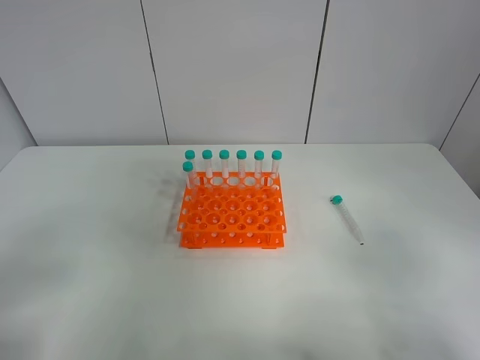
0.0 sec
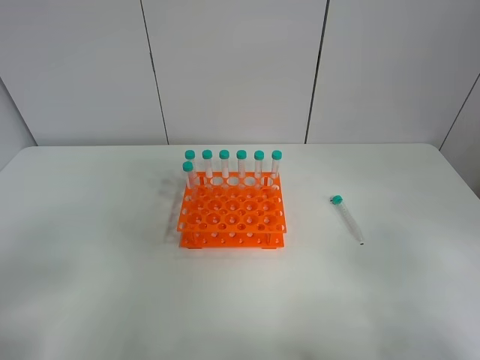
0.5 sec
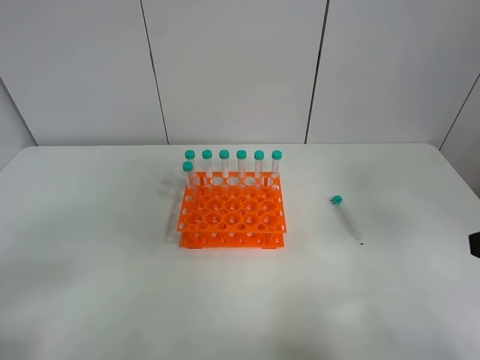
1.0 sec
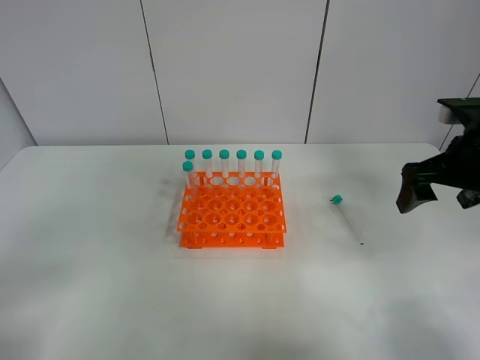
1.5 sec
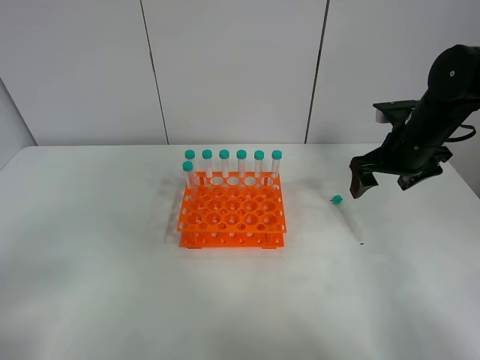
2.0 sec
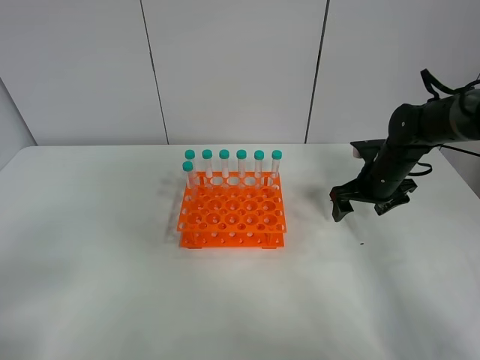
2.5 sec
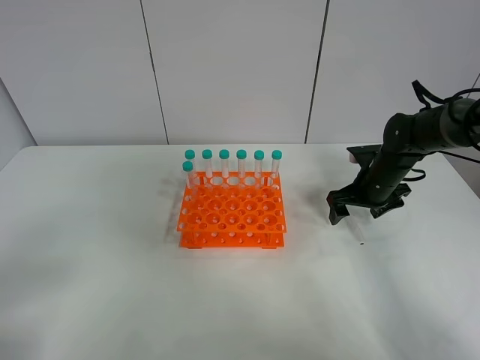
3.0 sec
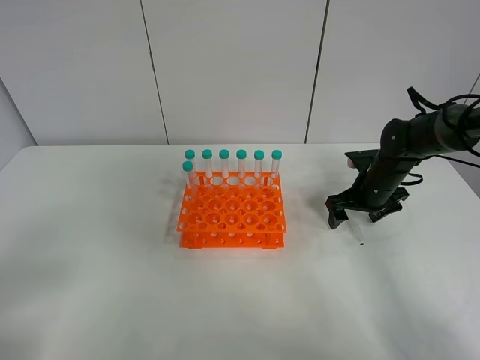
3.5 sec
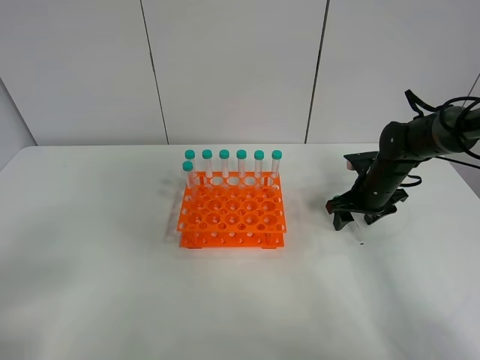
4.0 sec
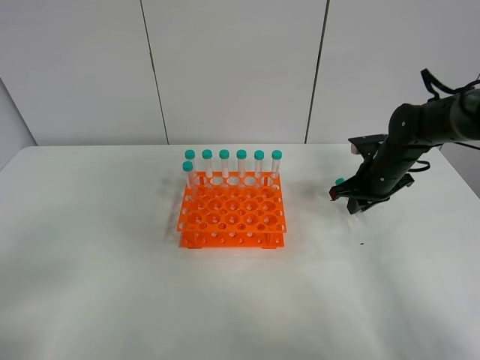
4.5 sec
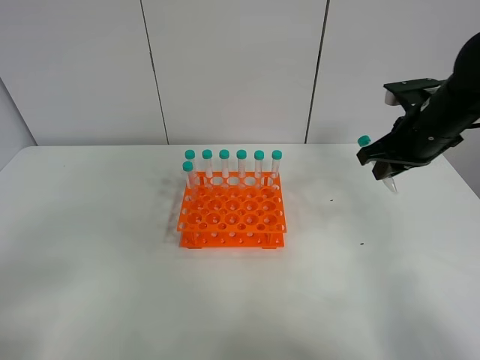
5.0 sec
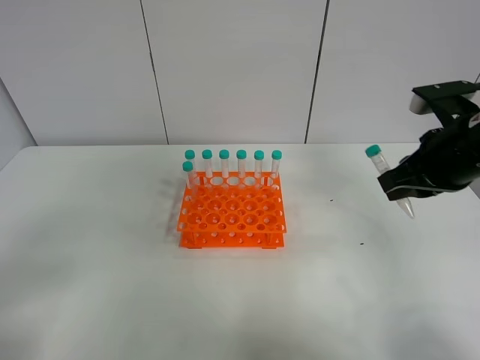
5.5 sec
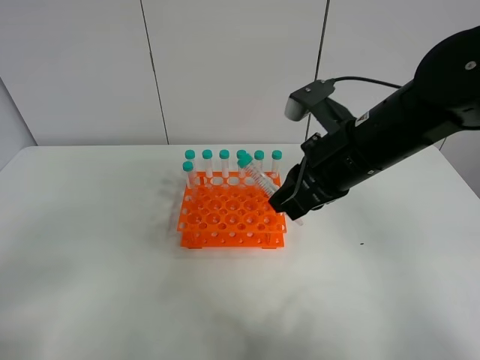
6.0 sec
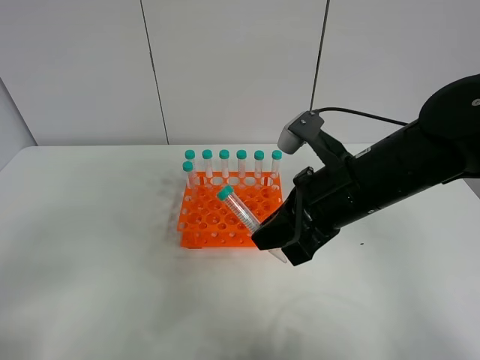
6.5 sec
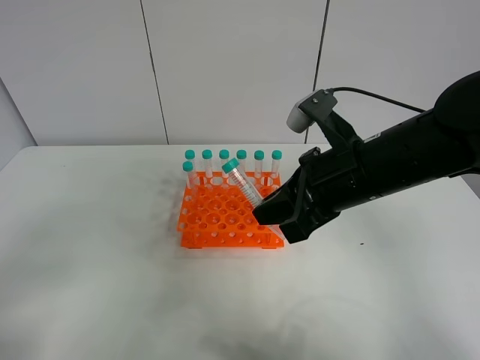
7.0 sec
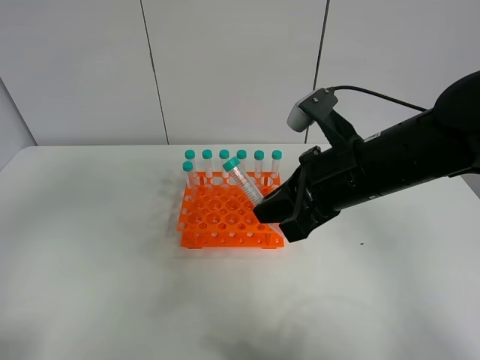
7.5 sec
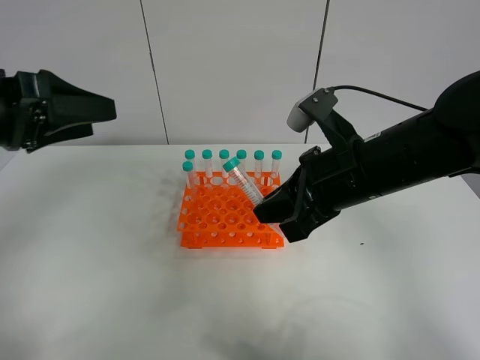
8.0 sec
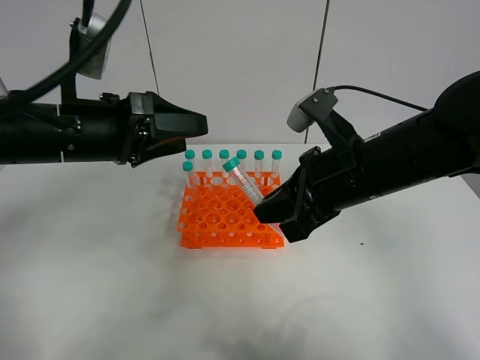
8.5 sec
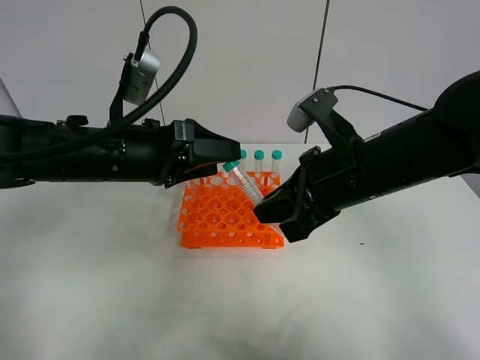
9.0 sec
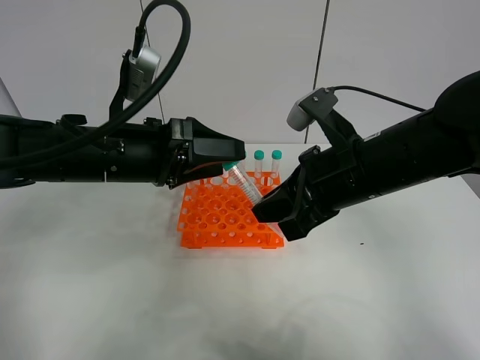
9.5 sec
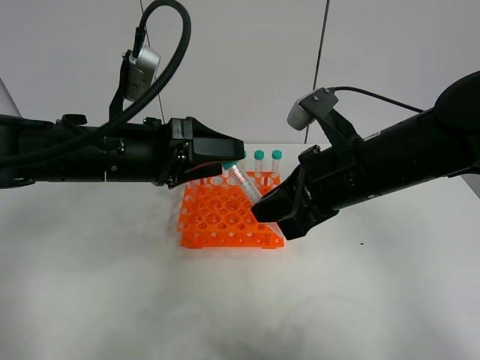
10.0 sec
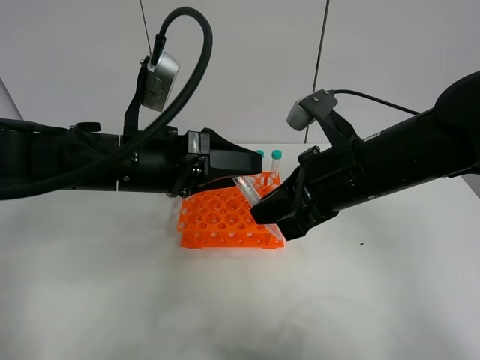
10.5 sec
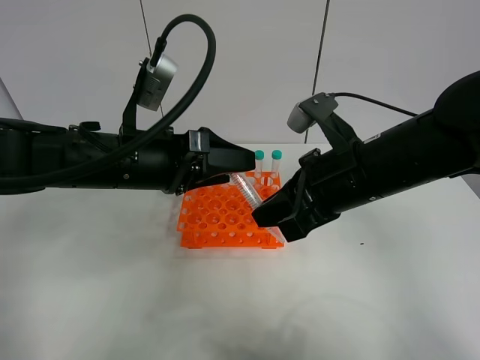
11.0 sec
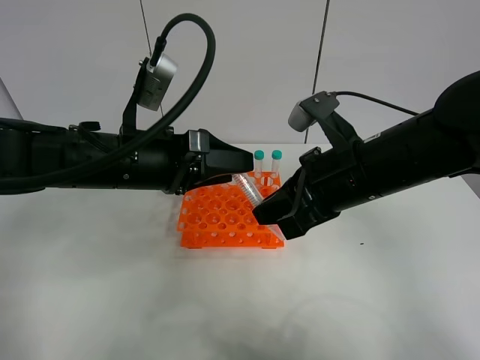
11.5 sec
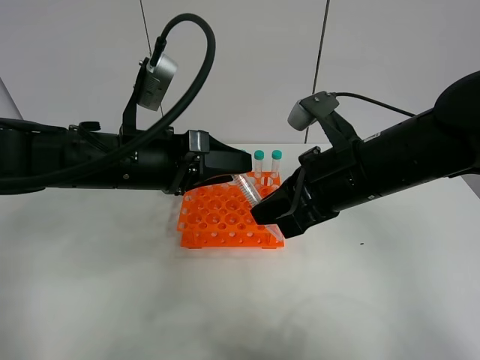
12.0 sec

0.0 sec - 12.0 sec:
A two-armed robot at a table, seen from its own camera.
Task of the whole recording: Put the test tube on the table back onto the test tube rack.
Step, 0.0 sec - 4.0 sec: Pick up the test tube with the right gripper.
0.0 sec - 2.0 sec: The right gripper shifts approximately 35 cm forward.
2.0 sec - 4.0 sec: The right gripper travels downward by some 10 cm.
4.0 sec - 6.0 sec: The right gripper shifts some 25 cm upward, backward and to the left, and closes up.
6.0 sec - 8.0 sec: The left gripper moves forward, about 20 cm.
8.0 sec - 10.0 sec: The left gripper heads to the right and downward, covering about 15 cm.
10.0 sec - 12.0 sec: The left gripper closes up.

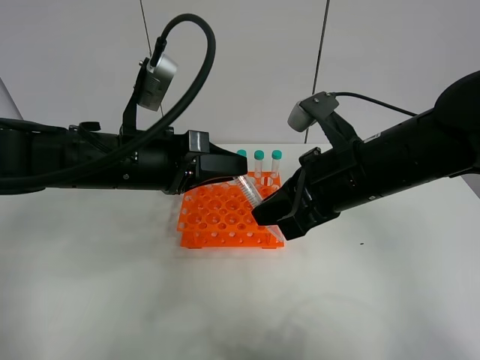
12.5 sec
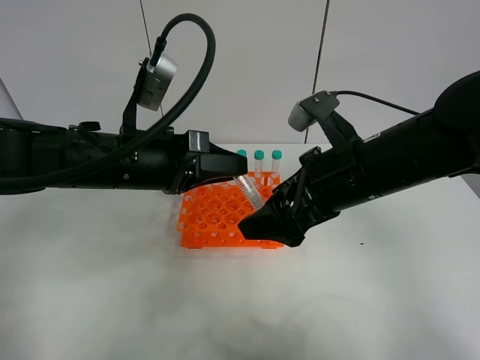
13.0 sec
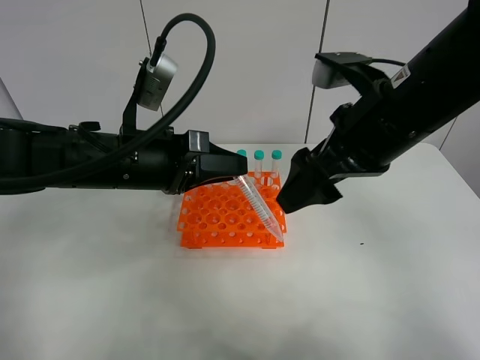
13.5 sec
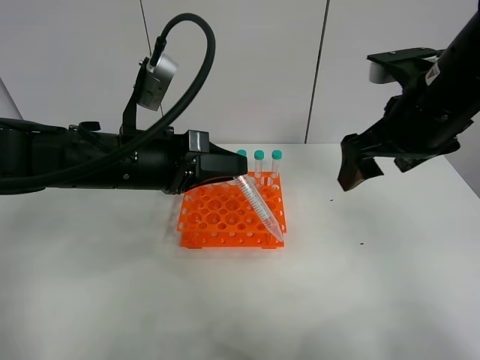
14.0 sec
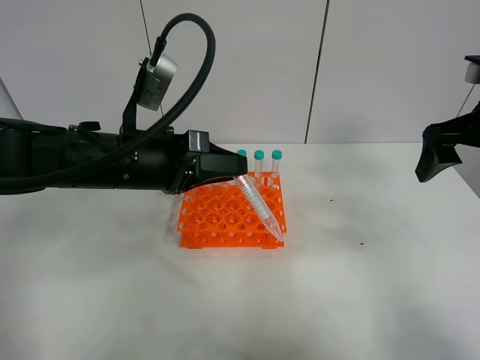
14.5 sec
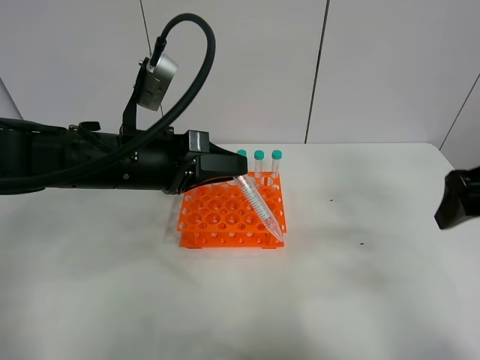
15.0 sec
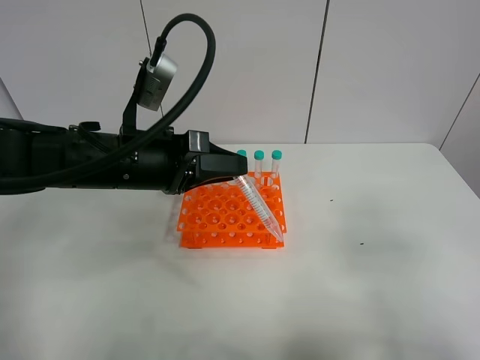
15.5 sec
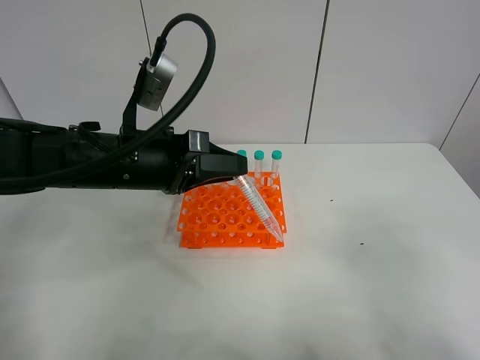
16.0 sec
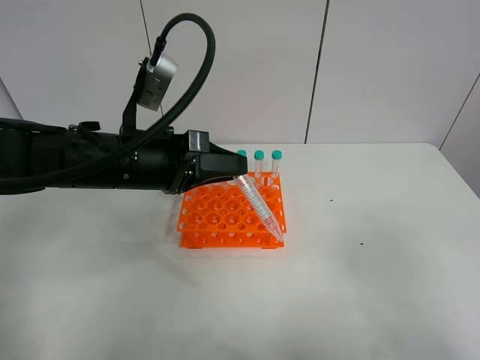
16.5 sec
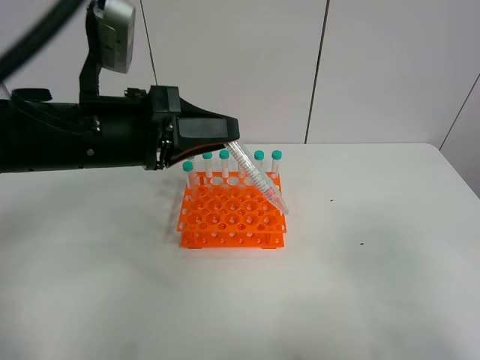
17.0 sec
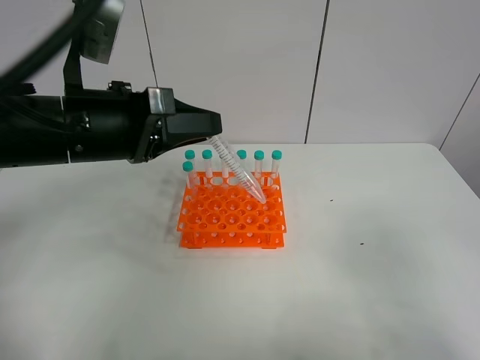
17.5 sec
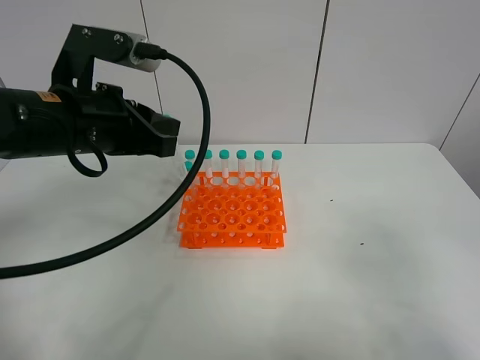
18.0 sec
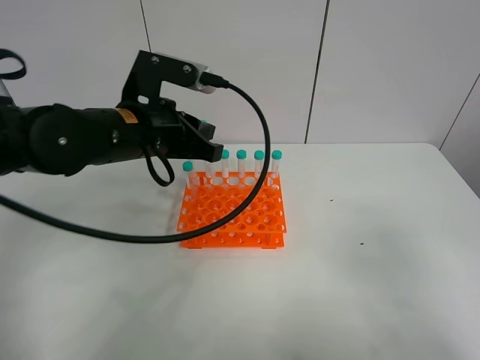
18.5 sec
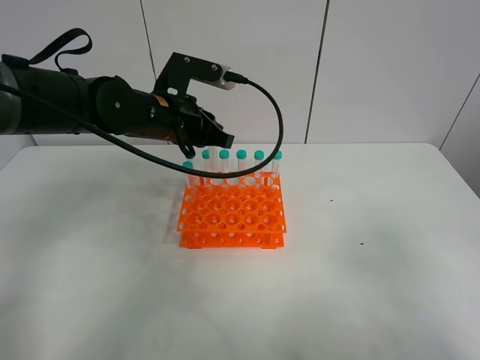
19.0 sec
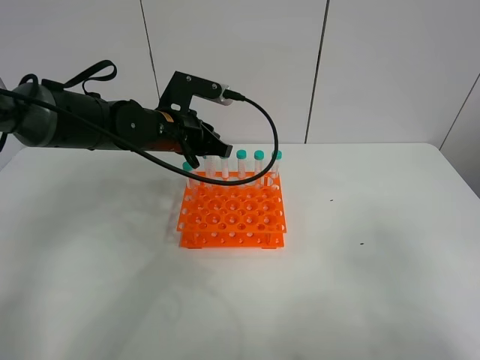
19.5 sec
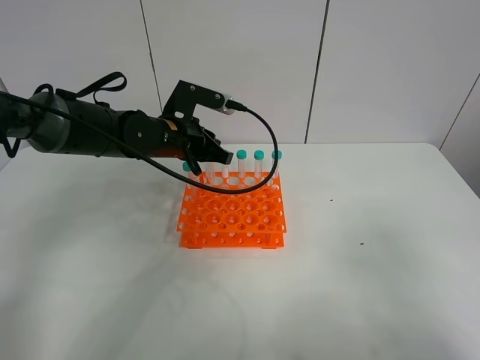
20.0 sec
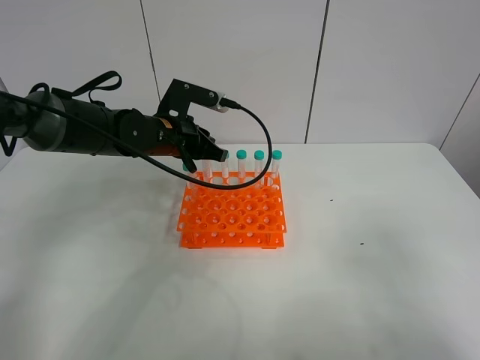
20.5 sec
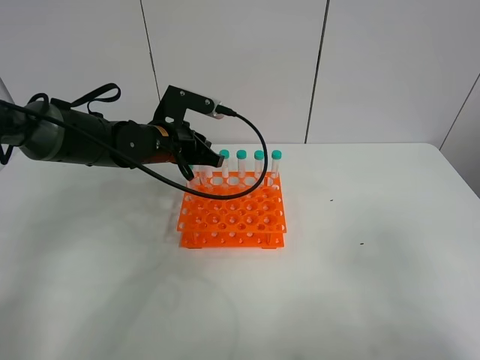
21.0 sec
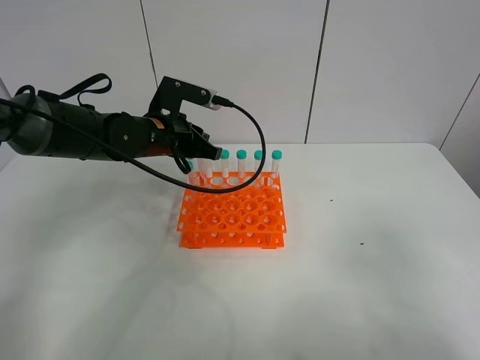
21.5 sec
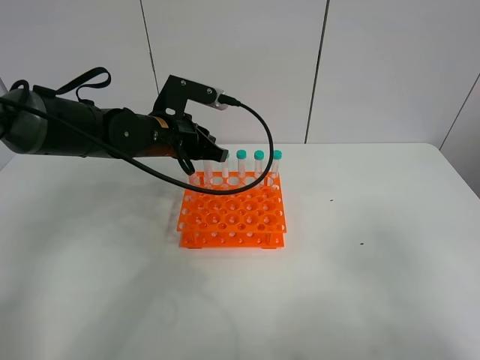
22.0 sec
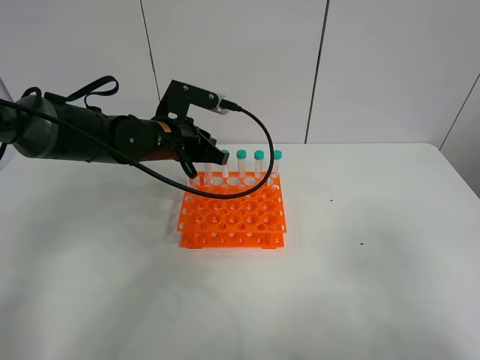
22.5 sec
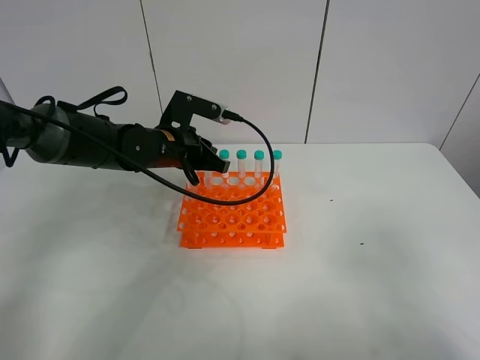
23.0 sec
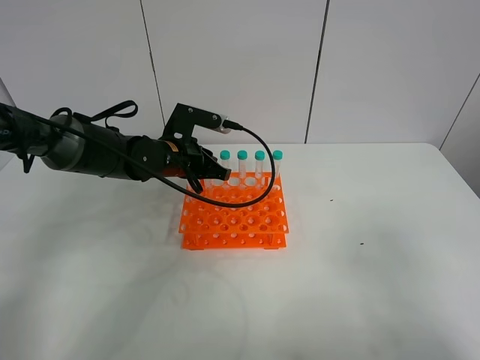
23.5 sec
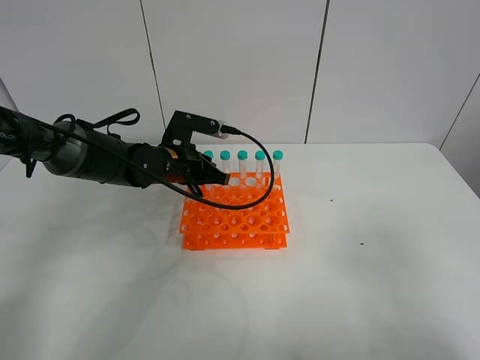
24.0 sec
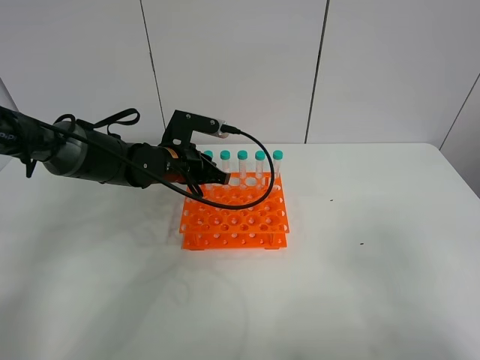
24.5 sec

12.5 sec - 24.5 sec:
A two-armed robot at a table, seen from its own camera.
Task of the whole recording: Put the test tube on the table back onto the test tube rack.
12.5 sec - 14.5 sec: The right gripper travels to the right by approximately 15 cm, and opens up.
14.5 sec - 16.5 sec: The right gripper goes about 30 cm backward.
16.5 sec - 18.5 sec: The left gripper changes place by some 5 cm.
18.5 sec - 20.5 sec: The left gripper travels forward and downward by about 10 cm.
20.5 sec - 24.5 sec: The grippers move only a little.

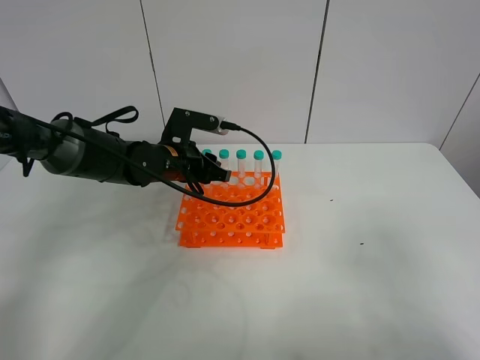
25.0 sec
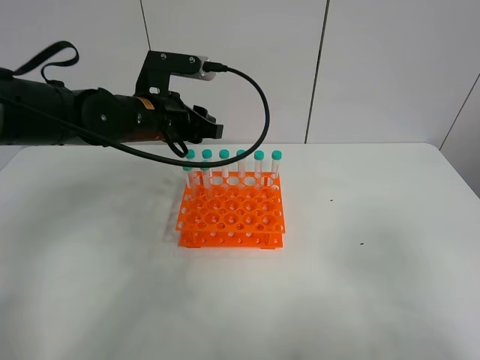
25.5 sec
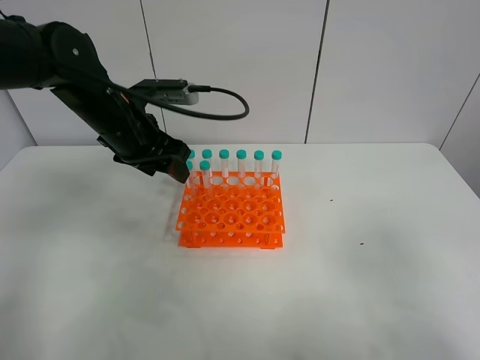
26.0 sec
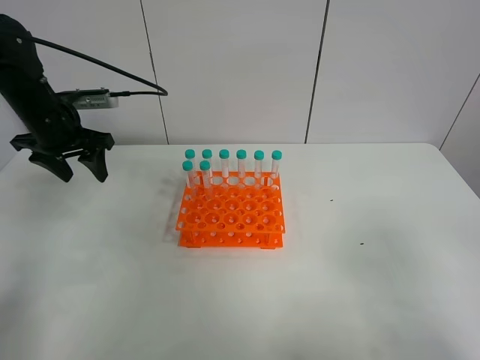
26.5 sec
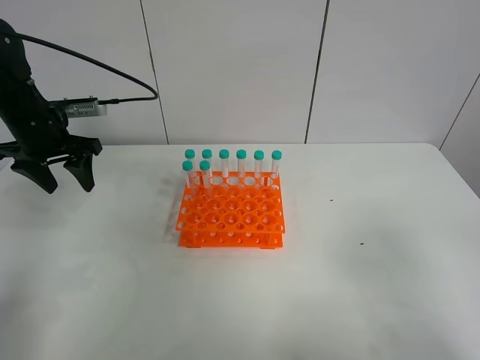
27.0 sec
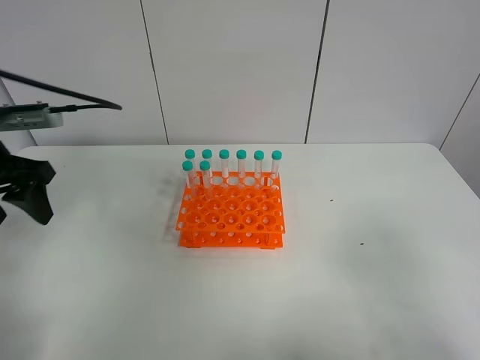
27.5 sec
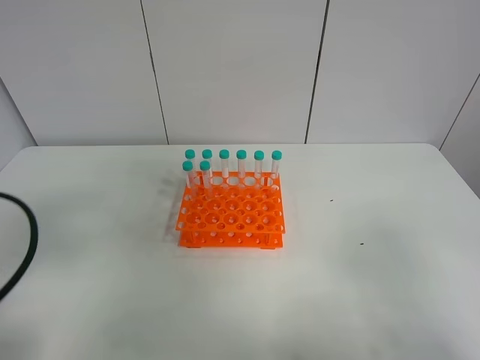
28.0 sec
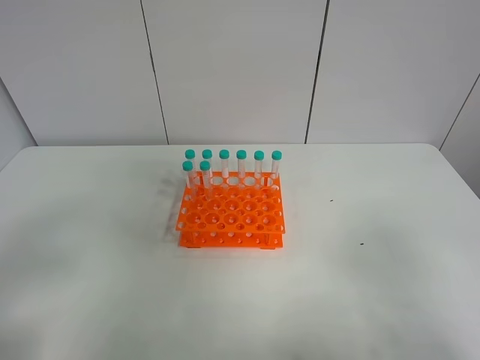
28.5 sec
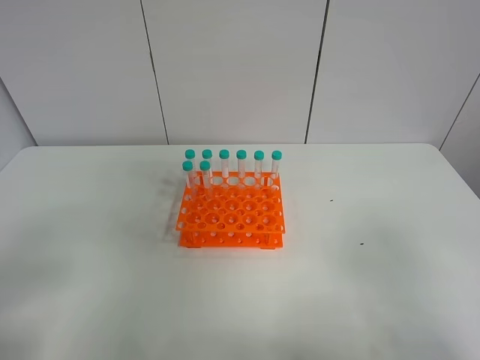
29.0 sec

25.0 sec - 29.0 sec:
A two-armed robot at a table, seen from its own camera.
Task of the whole recording: Put the test tube on the table back onto the test tube rack.
25.0 sec - 27.0 sec: The left gripper shifts about 20 cm to the left, and opens up.
27.0 sec - 29.0 sec: The left gripper travels backward by about 35 cm.
